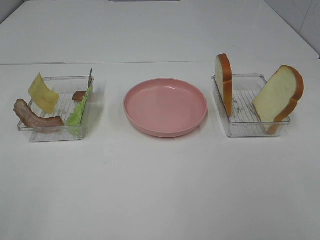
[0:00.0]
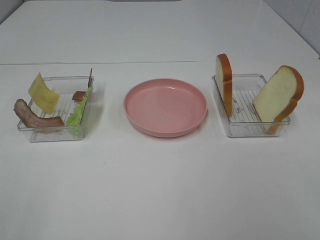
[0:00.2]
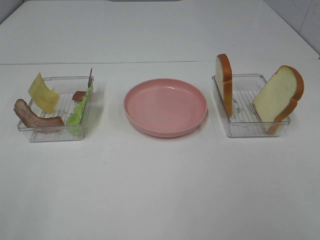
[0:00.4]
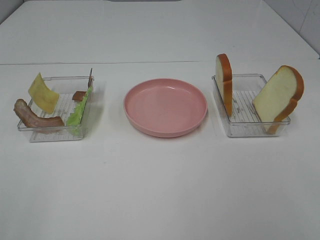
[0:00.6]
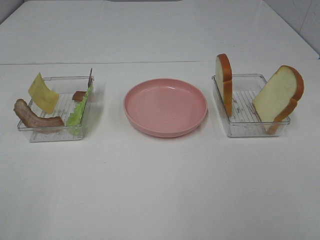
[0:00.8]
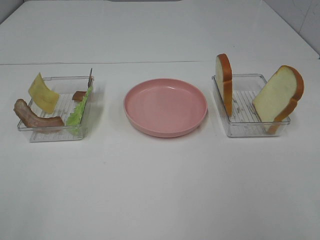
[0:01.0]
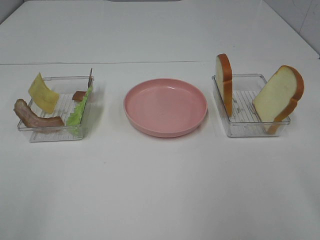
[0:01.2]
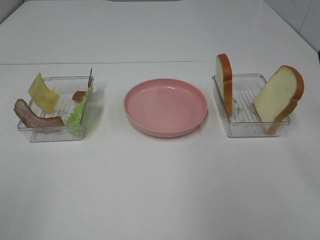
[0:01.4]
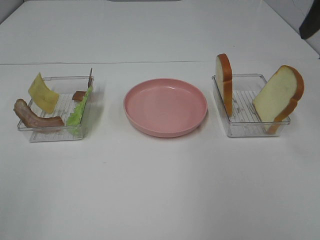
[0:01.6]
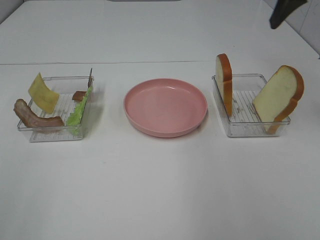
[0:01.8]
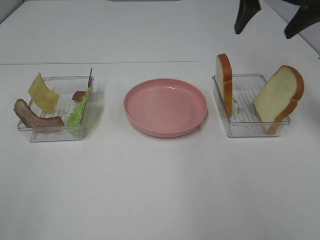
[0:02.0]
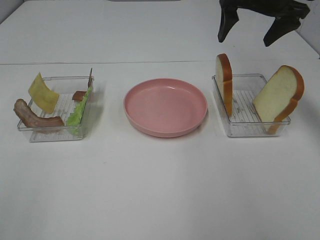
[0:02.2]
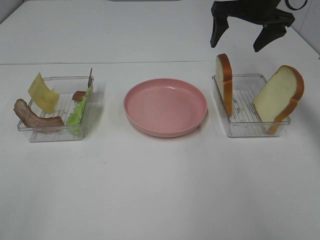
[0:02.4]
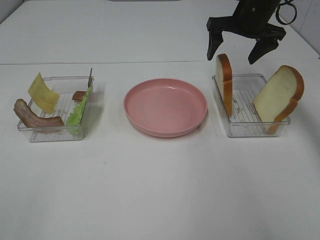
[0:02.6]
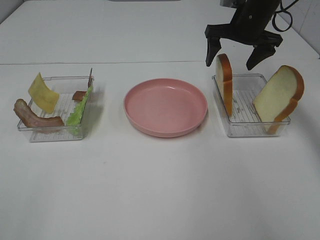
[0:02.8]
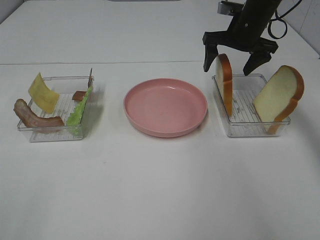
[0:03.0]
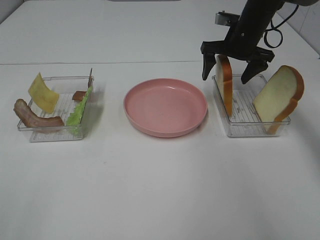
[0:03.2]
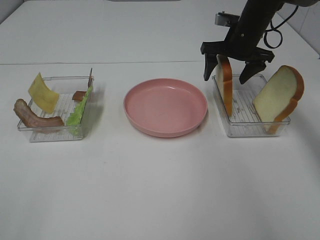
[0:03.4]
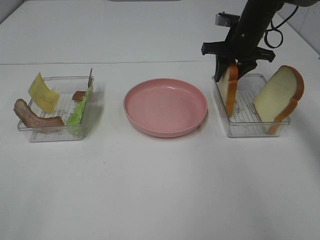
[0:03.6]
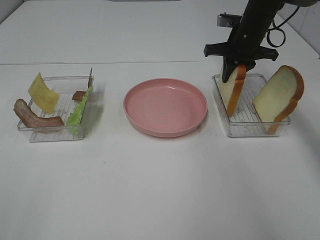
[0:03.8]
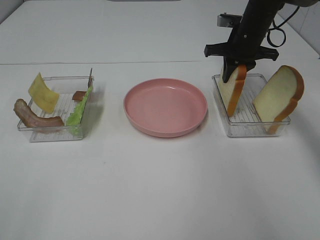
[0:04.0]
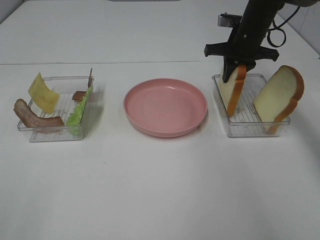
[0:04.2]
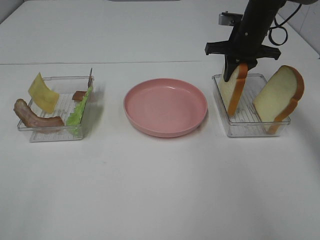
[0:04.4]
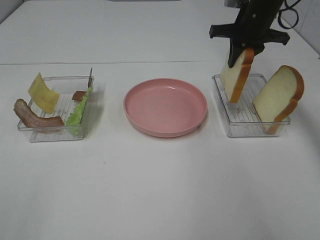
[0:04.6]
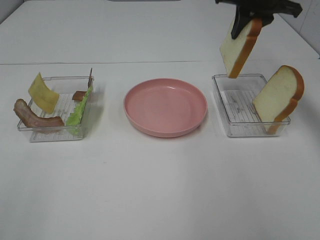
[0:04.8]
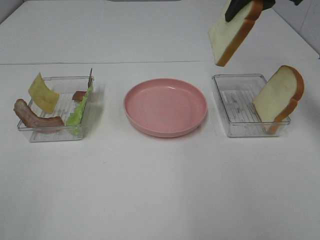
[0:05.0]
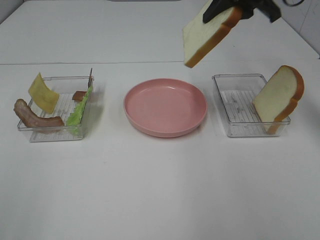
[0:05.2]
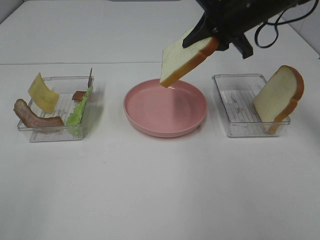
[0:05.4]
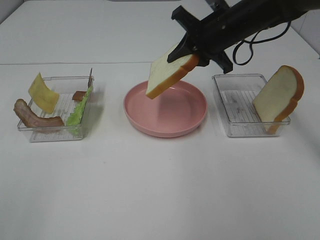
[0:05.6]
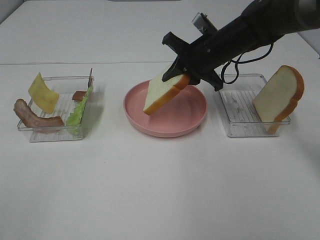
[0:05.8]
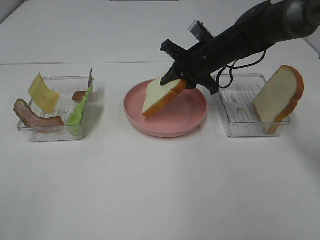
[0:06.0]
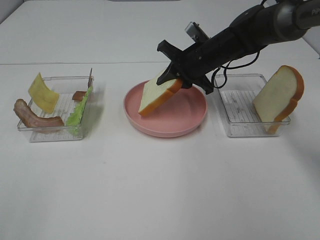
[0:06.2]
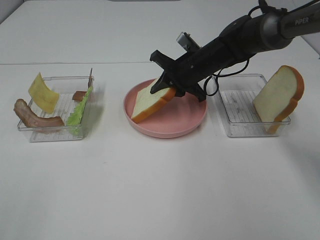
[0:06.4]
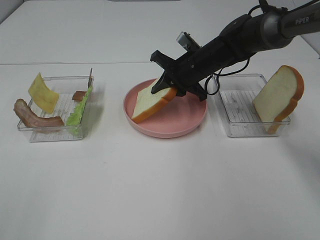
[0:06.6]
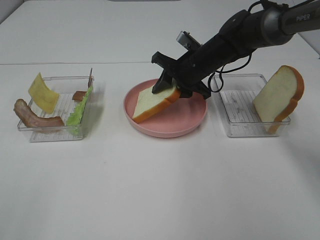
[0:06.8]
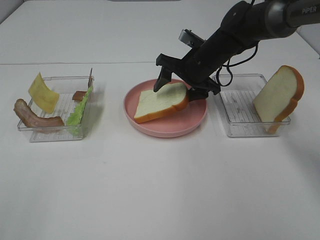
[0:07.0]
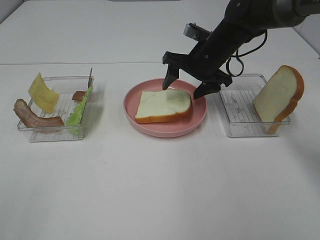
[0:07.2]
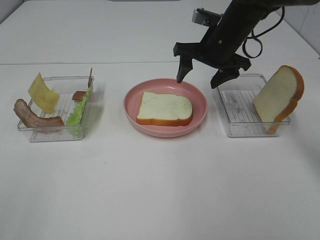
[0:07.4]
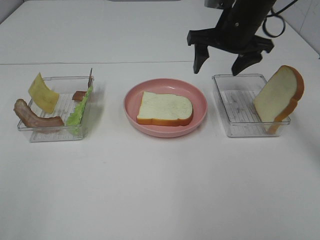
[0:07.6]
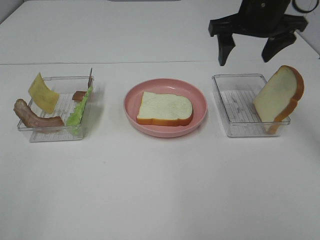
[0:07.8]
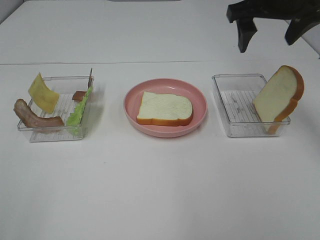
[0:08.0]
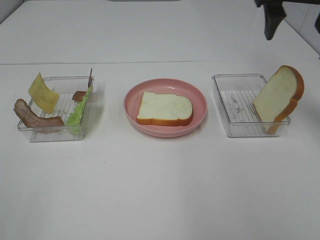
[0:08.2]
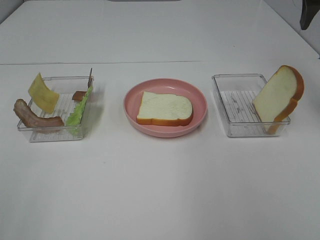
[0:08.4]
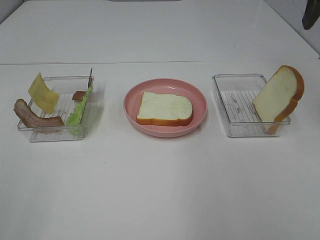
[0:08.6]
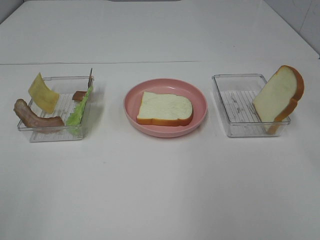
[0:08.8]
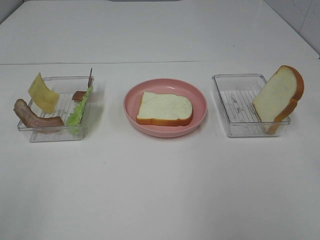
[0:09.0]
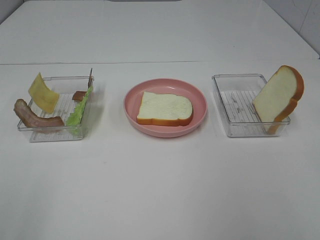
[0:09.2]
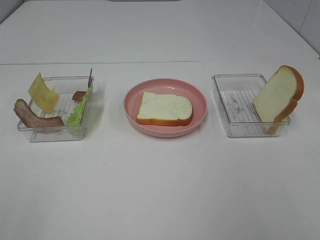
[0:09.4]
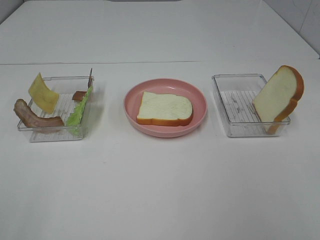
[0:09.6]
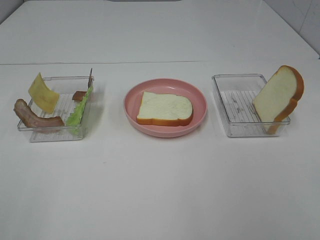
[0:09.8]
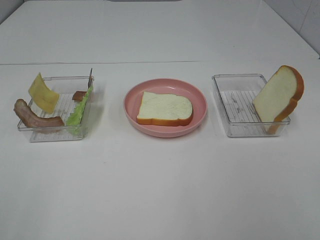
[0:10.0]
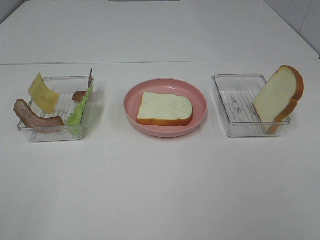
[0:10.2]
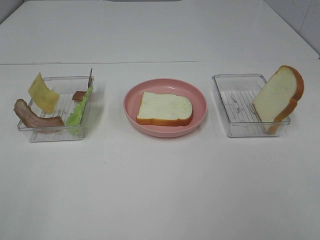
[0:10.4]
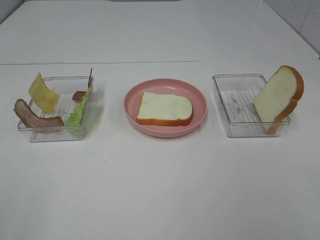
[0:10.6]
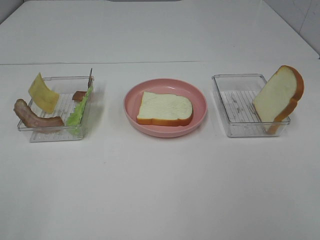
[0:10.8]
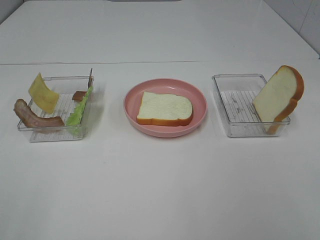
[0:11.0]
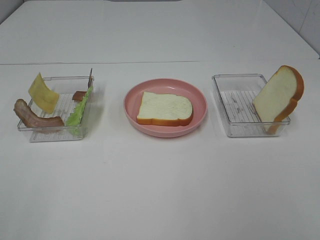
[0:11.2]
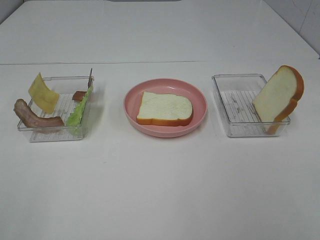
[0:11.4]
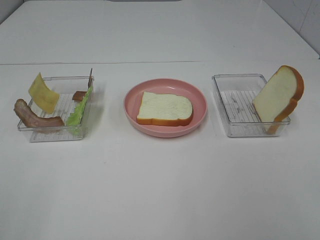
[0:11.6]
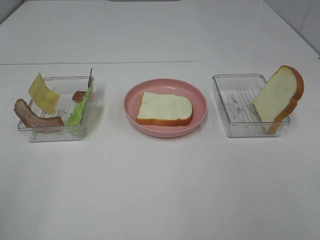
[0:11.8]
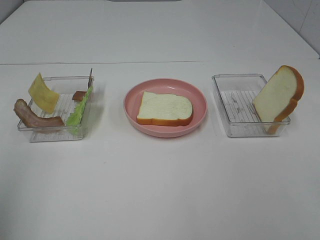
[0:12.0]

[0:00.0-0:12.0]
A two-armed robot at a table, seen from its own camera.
Task of the whole recording: Make sandwiches.
Step, 0:00.0 to 0:03.6: Right hand:grab the bread slice.
Step, 0:03.8 to 0:07.2: Right hand:place the bread slice on the plate.
0:00.0 to 0:01.6: The right gripper goes about 30 cm forward.
0:01.6 to 0:03.0: The right gripper heads forward, downward and to the left, covering about 30 cm.
0:03.0 to 0:04.4: The right gripper closes.
0:04.4 to 0:06.0: The right gripper goes some 10 cm to the left and backward, and goes upward and returns, roughly 15 cm each way.
0:06.0 to 0:07.6: The right gripper is displaced upward by approximately 10 cm, and opens its fingers.
0:07.6 to 0:09.0: The right gripper heads backward, to the right and upward, covering some 30 cm.

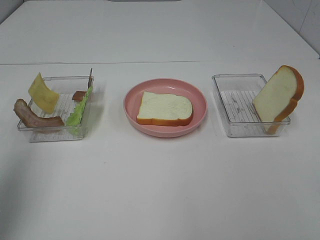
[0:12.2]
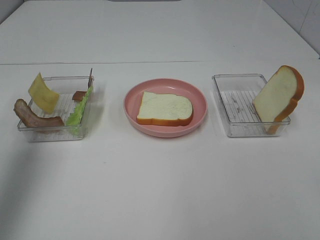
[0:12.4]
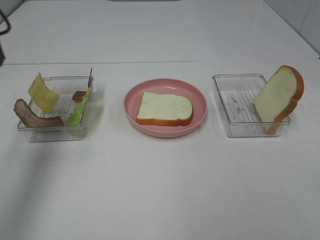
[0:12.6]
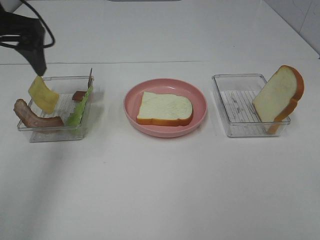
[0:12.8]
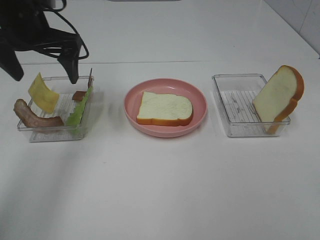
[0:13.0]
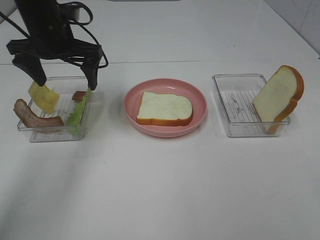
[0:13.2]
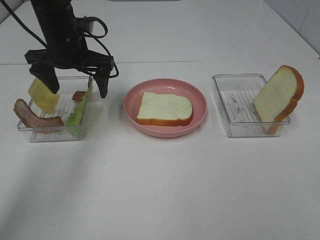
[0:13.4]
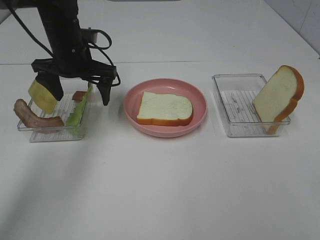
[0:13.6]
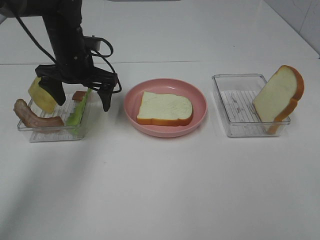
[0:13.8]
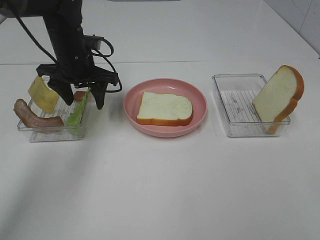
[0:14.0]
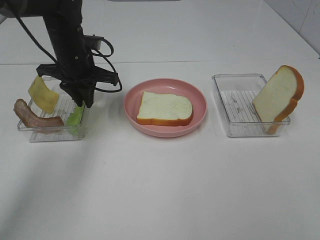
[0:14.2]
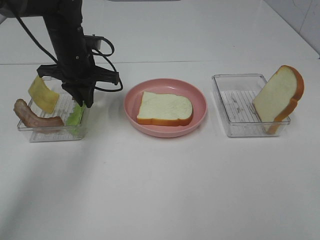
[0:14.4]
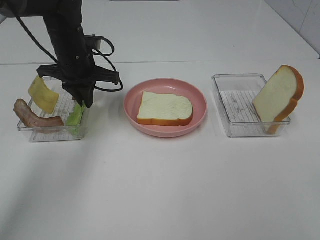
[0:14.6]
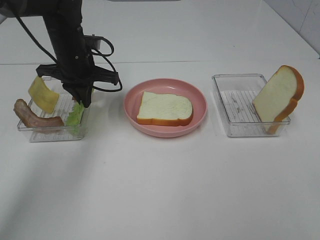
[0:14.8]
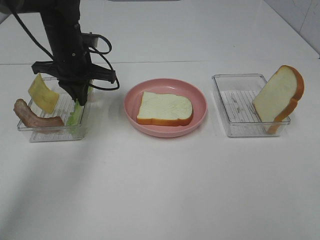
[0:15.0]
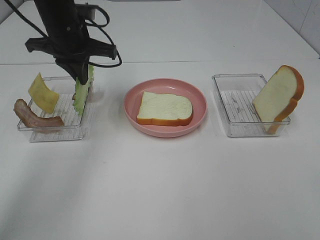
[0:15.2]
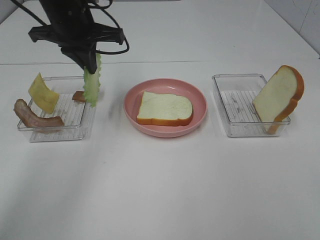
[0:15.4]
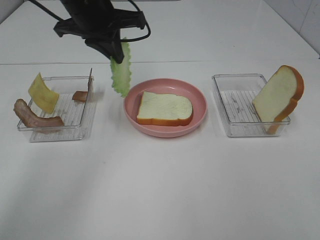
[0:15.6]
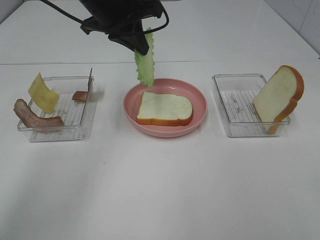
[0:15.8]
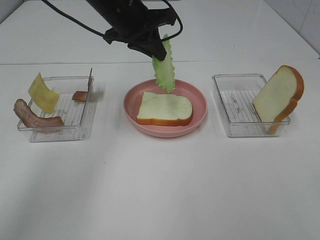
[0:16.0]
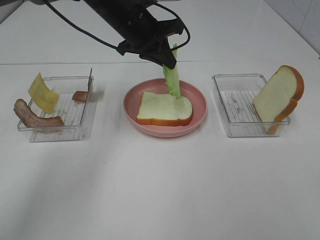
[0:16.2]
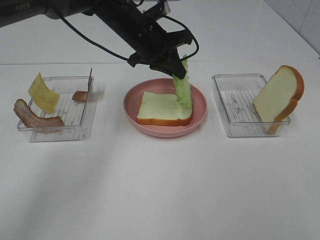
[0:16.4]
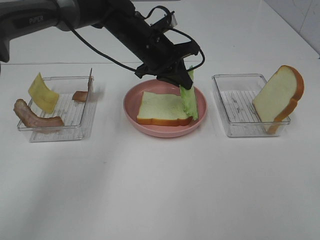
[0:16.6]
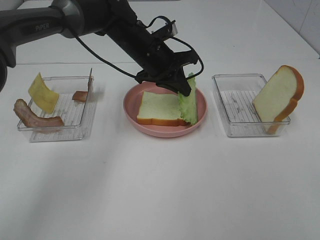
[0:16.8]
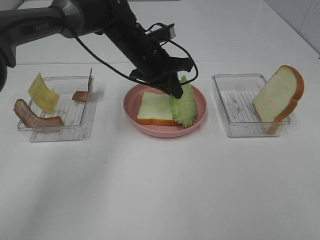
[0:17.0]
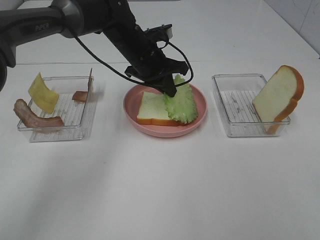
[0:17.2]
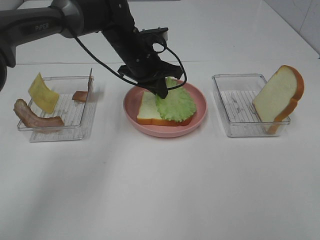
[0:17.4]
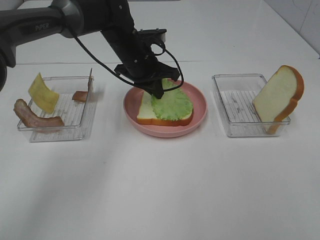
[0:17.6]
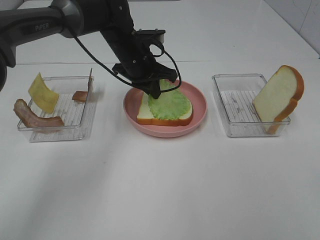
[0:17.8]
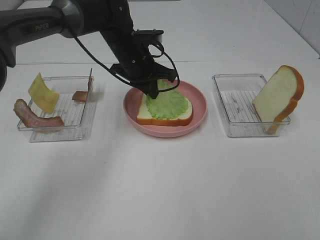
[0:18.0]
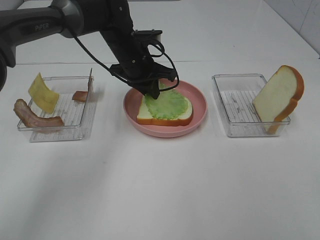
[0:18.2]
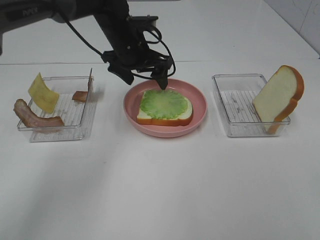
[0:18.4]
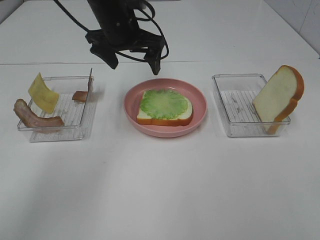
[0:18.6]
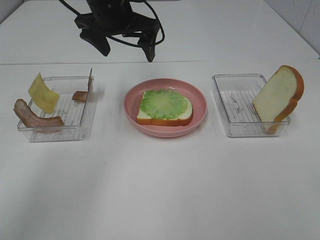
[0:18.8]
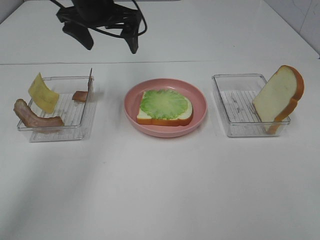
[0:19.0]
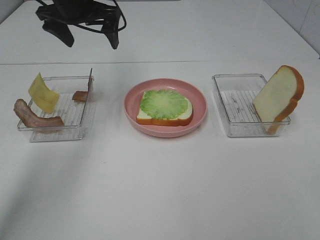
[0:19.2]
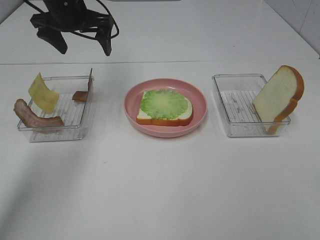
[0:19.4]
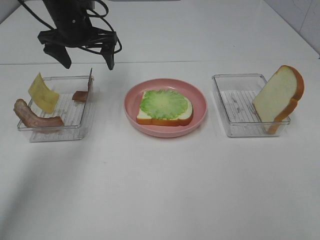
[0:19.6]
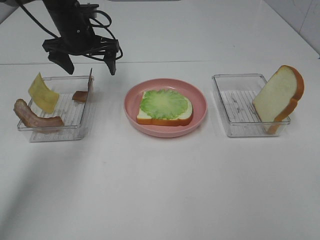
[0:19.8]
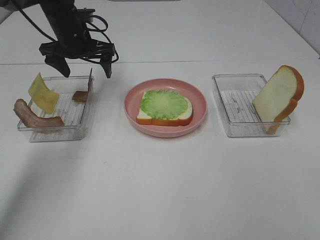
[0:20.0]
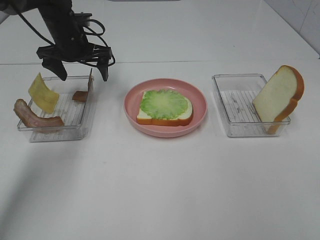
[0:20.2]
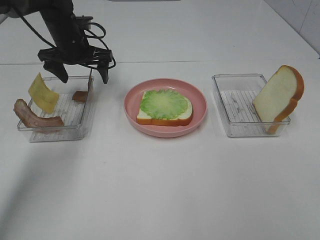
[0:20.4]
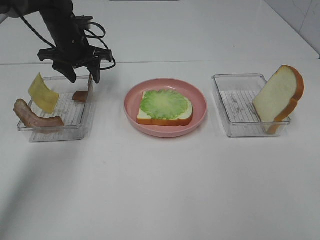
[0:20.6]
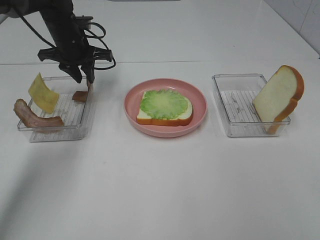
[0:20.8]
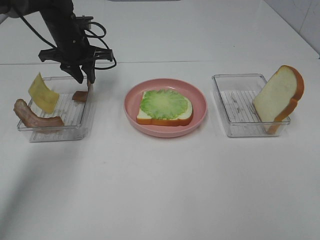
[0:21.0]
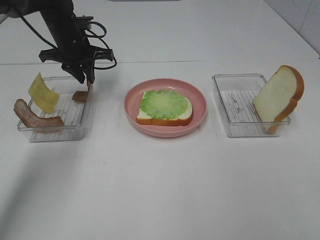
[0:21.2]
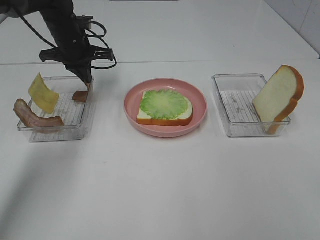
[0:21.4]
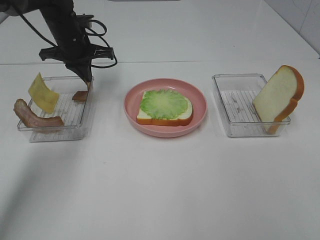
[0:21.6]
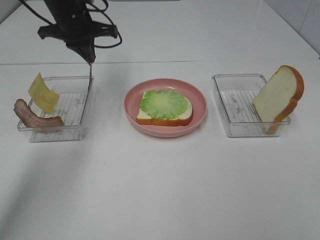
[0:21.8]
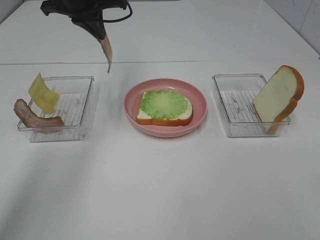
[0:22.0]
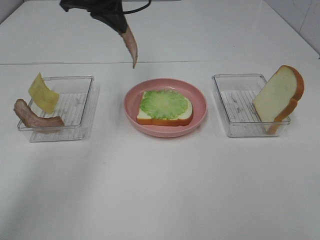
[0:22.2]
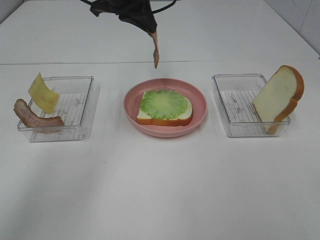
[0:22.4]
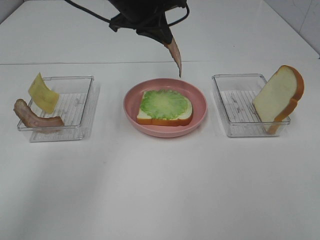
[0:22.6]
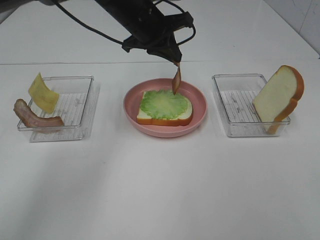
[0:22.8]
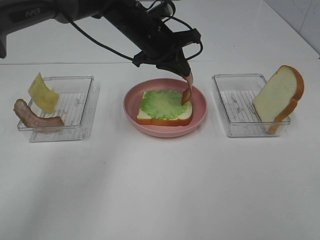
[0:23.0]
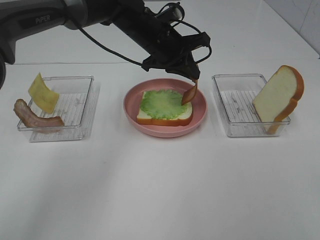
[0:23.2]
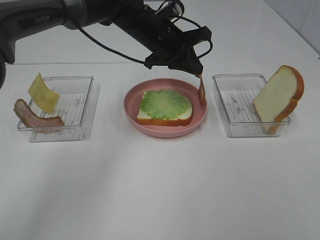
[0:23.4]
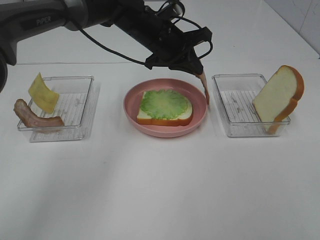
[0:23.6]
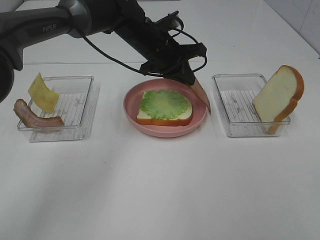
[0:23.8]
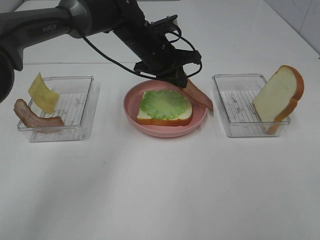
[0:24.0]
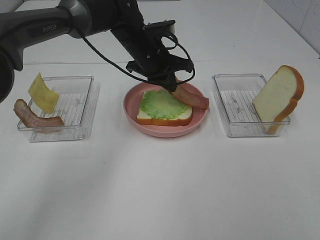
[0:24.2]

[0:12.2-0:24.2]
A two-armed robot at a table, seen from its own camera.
Task of the whole recording: Make sandwiches.
Step, 0:12.2 to 0:14.8: Left hand:grab the lettuce slice.
Step, 0:15.0 to 0:18.4: Left hand:place the lettuce slice on the bread slice.
Step, 0:18.6 to 0:21.4: Left hand:grab the bacon.
0:12.2 to 0:13.8: The left gripper travels forward, downward and to the right by roughly 35 cm.
0:13.8 to 0:15.2: The left gripper moves upward, some 5 cm, and closes.
0:15.2 to 0:16.6: The left gripper shifts some 15 cm to the right and downward.
0:18.2 to 0:19.8: The left gripper is displaced to the left by some 10 cm, and opens its fingers.
0:19.8 to 0:21.2: The left gripper closes.
0:21.2 to 0:22.6: The left gripper goes roughly 15 cm to the right and upward.
0:22.6 to 0:24.2: The left gripper moves downward, some 10 cm.
